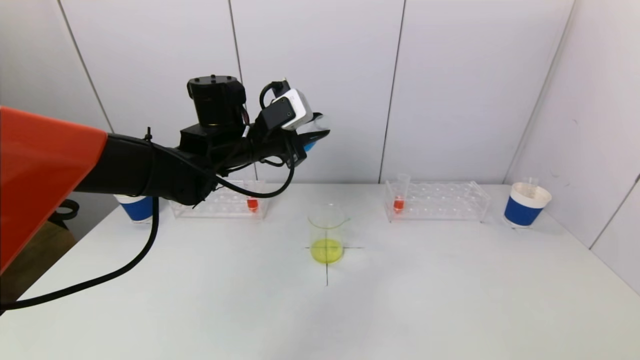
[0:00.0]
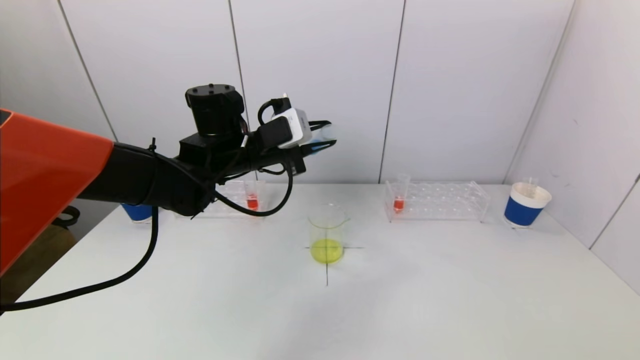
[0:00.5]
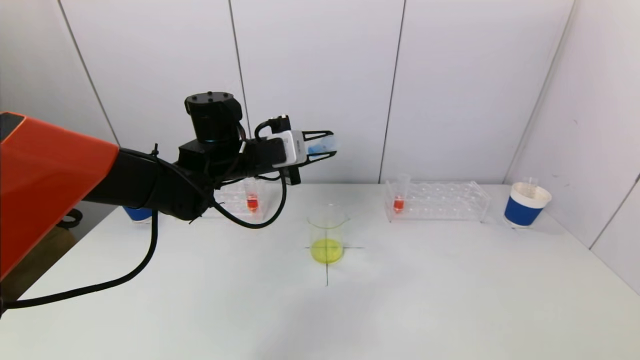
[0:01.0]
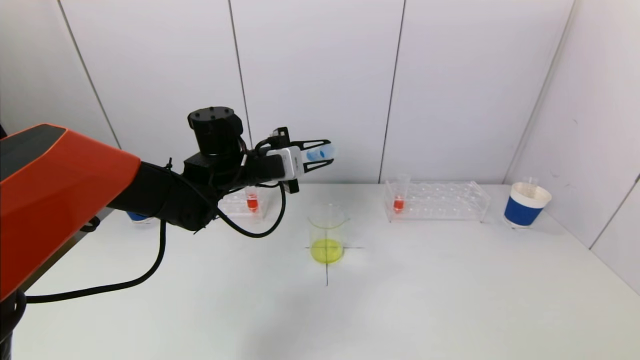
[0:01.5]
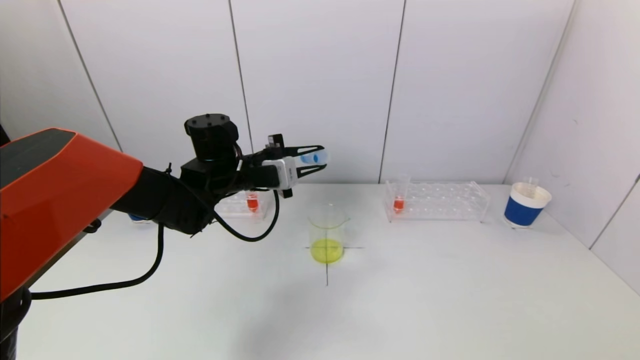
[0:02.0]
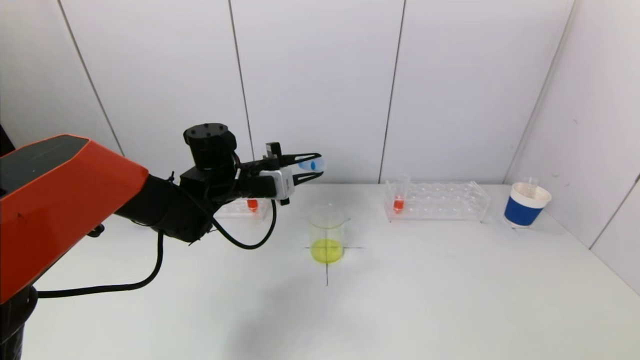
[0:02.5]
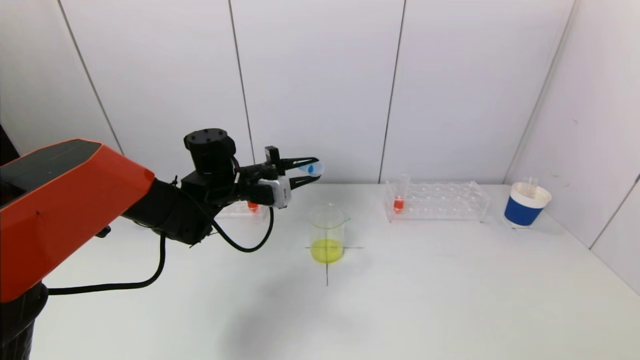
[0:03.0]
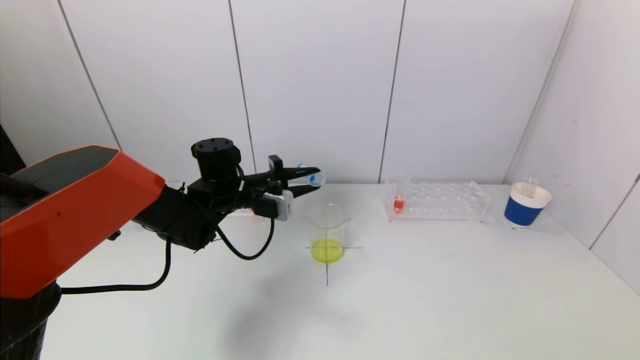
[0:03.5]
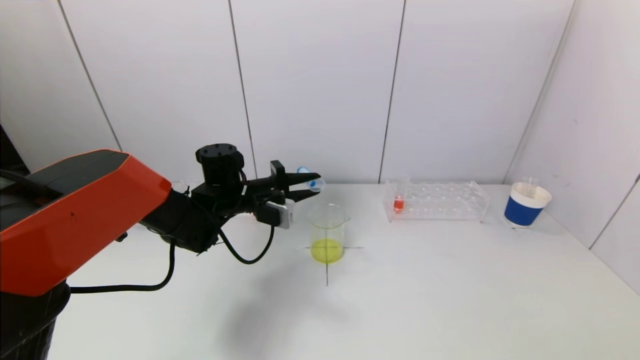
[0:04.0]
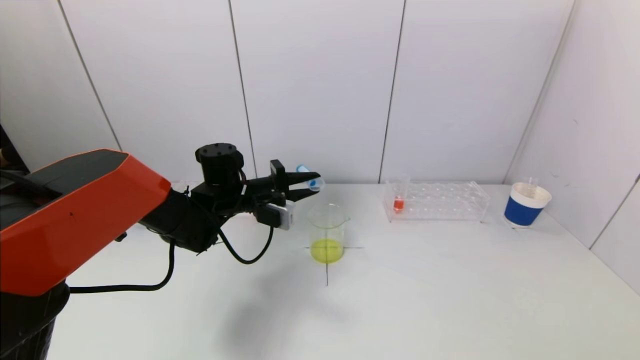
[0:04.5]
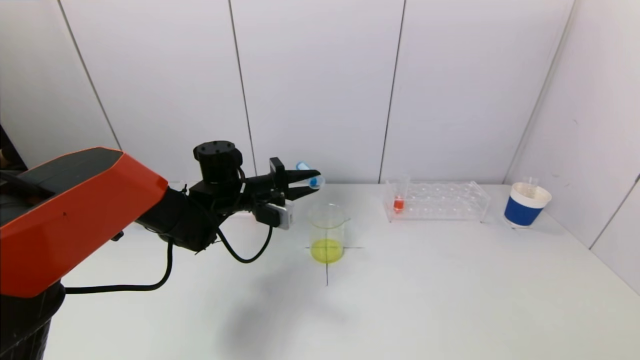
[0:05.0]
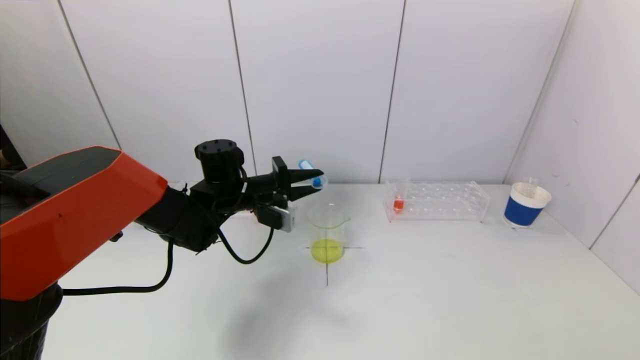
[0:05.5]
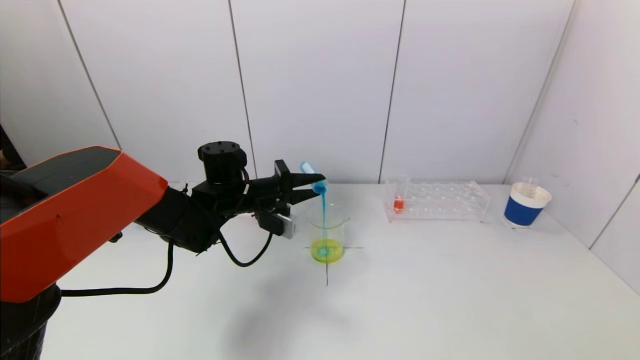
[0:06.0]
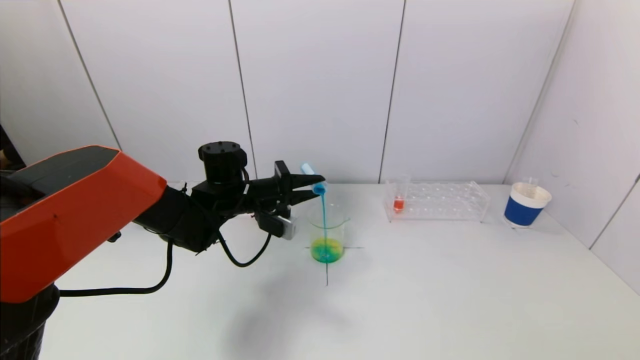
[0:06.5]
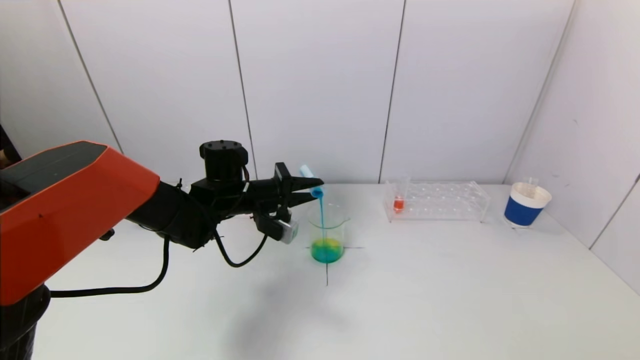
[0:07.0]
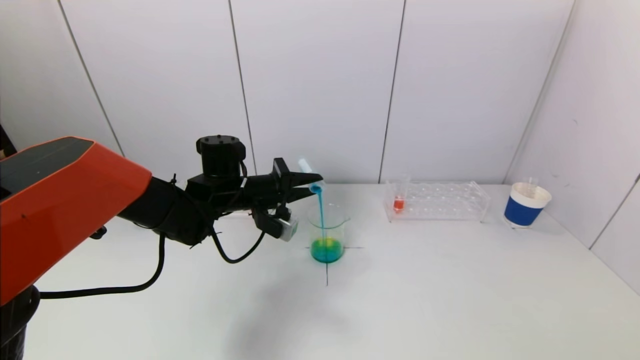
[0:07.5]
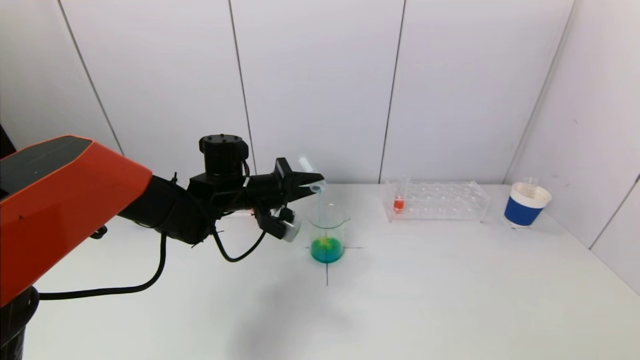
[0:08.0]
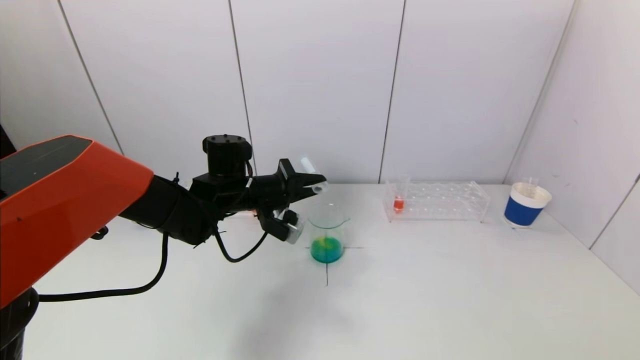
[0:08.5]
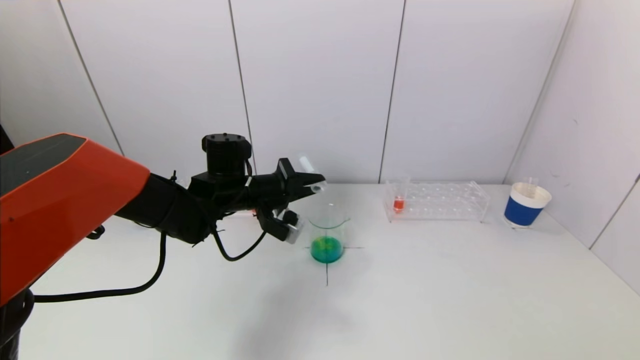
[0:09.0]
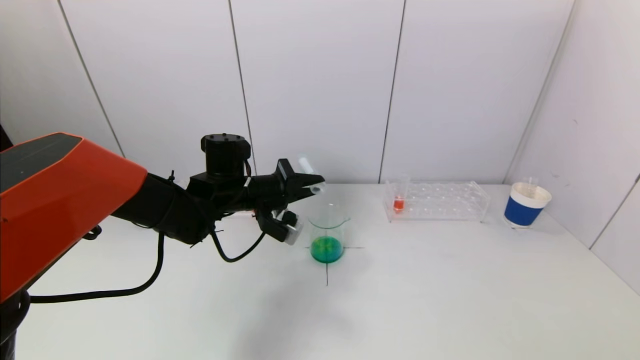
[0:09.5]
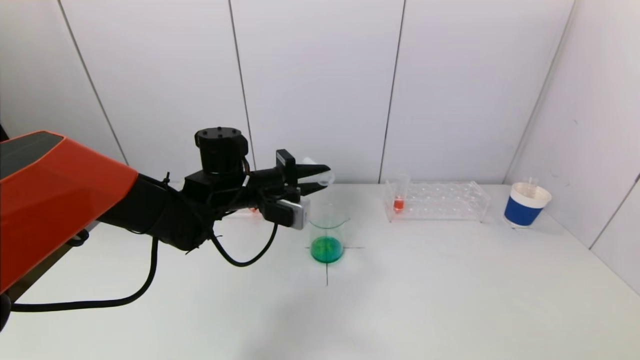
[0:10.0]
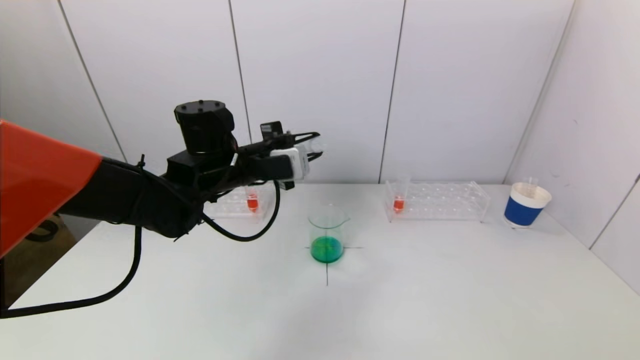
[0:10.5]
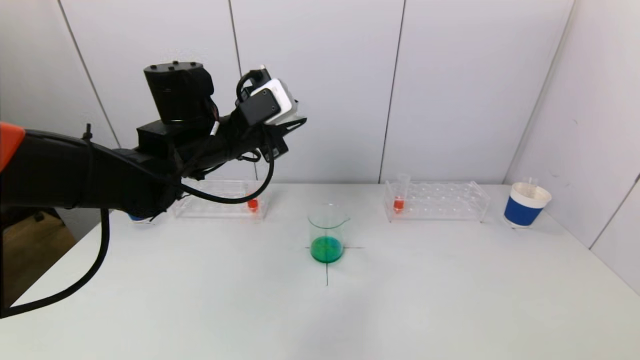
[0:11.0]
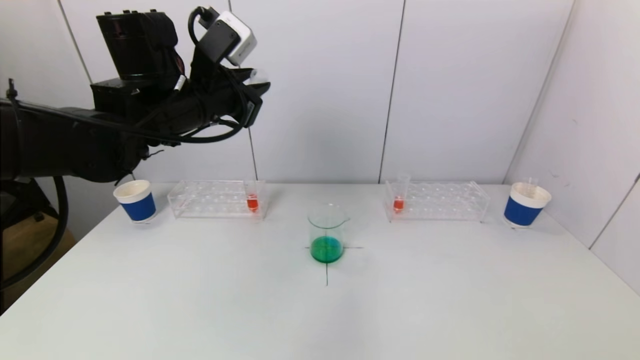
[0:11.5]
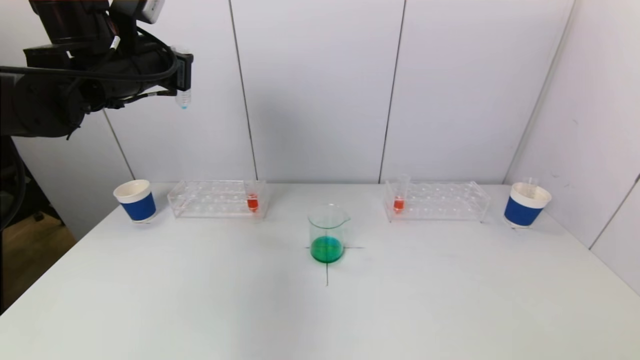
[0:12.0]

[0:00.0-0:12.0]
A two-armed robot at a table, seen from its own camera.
Task of the whole recording: pick up a test tube with pigment on left test tube rack and a test tube with pigment on right test tube rack by grippers and pour them into the beaker.
Step, 0:00.0 to 0:08.5: Pour the blue reagent into the graduated cylinder with the left gripper.
0:00.0 to 0:02.0: The left gripper heads downward, covering some 5 cm.
0:02.0 to 0:04.0: The left gripper moves downward, about 5 cm.
0:04.0 to 0:06.0: The grippers make only small movements.
0:06.0 to 0:10.0: There are only small adjustments of the grippers.
0:10.0 to 0:12.0: The left gripper moves upward and to the left, some 20 cm.

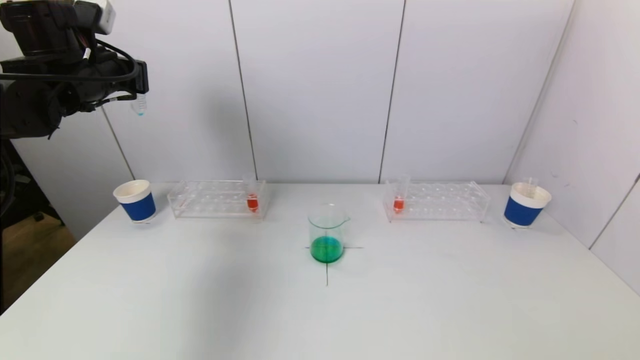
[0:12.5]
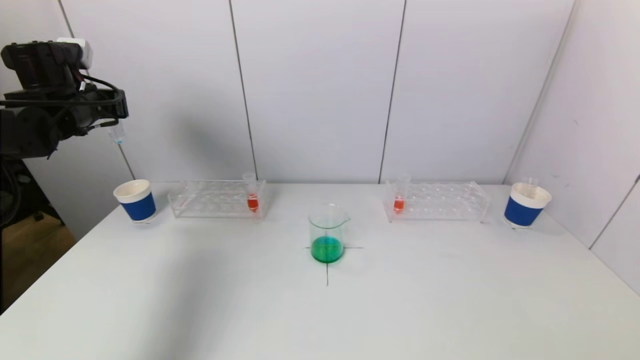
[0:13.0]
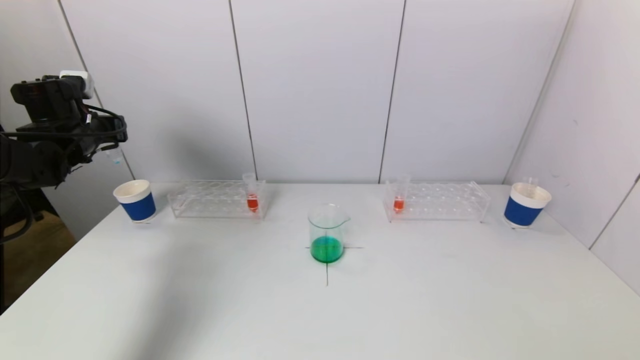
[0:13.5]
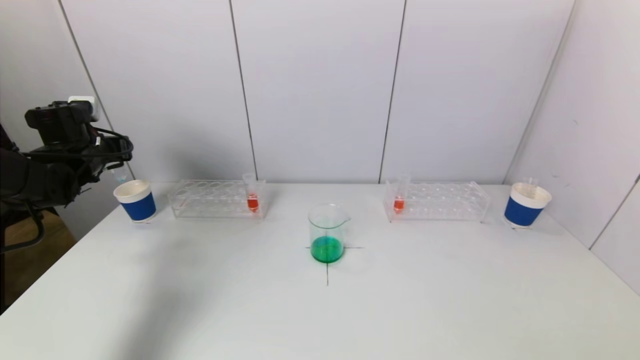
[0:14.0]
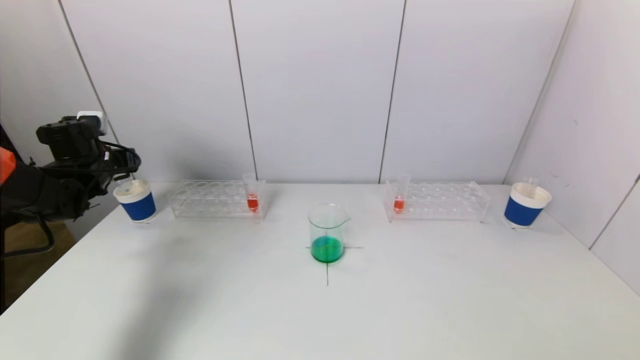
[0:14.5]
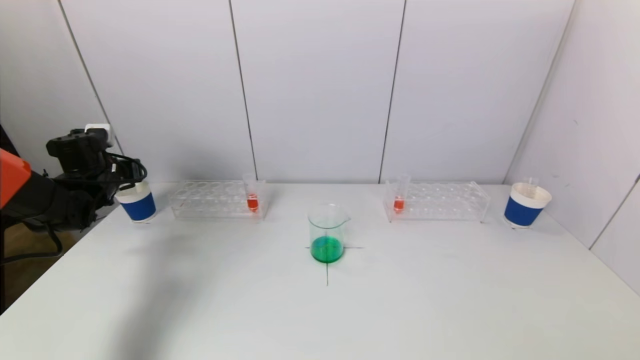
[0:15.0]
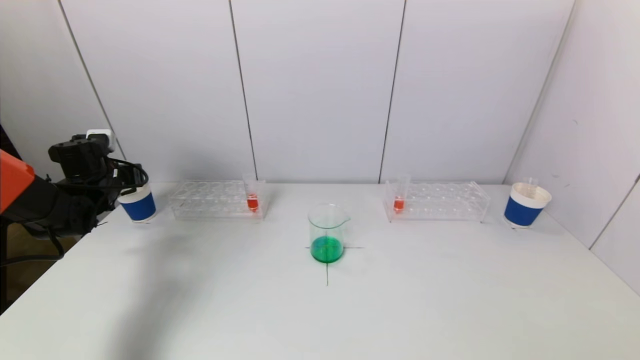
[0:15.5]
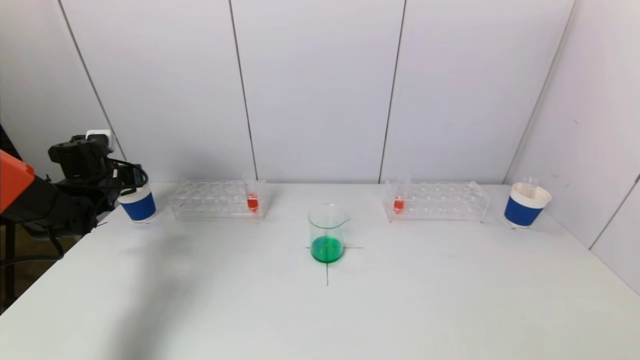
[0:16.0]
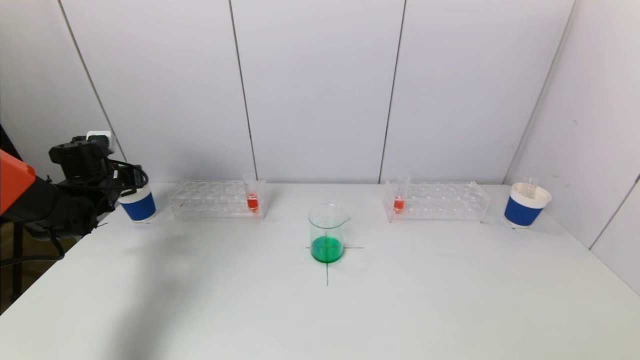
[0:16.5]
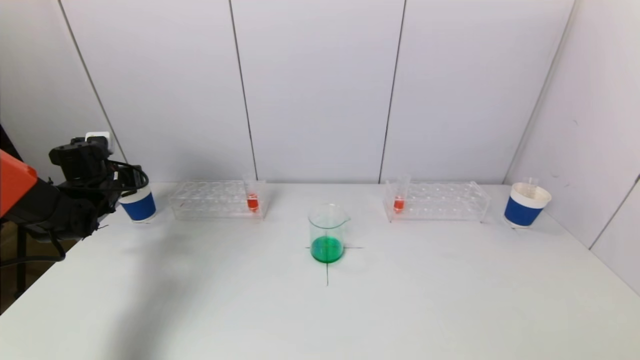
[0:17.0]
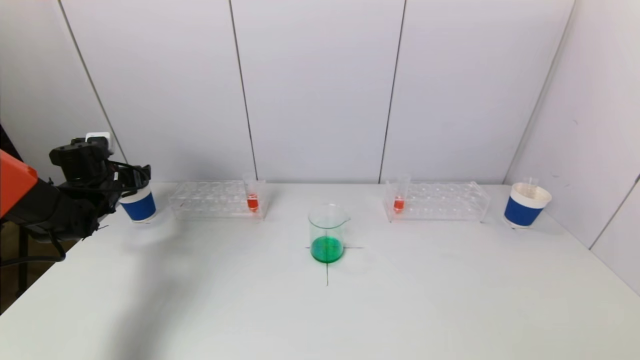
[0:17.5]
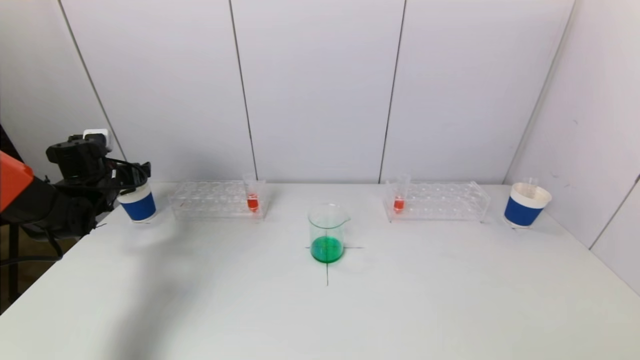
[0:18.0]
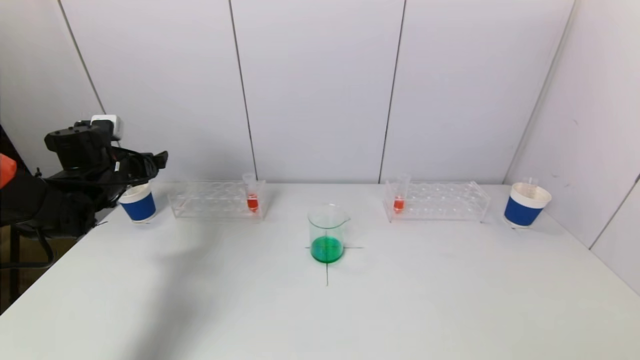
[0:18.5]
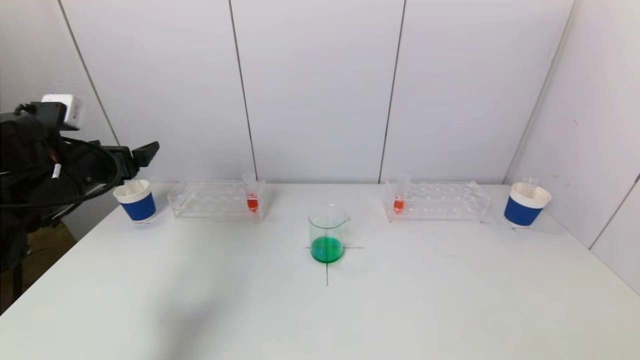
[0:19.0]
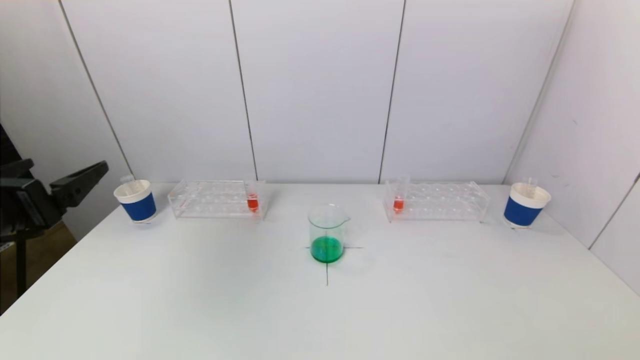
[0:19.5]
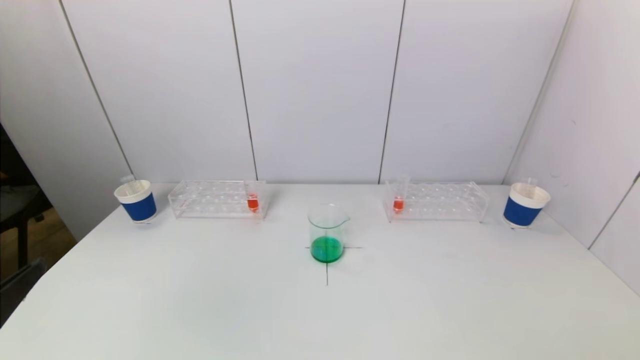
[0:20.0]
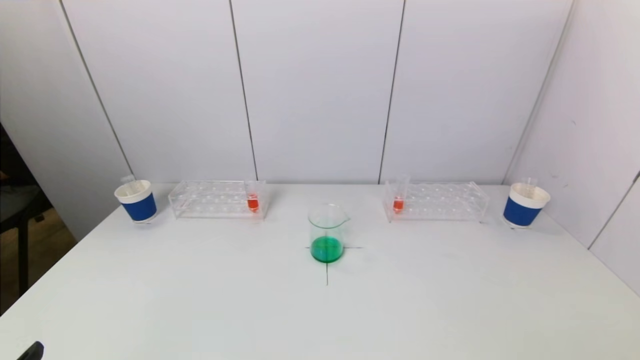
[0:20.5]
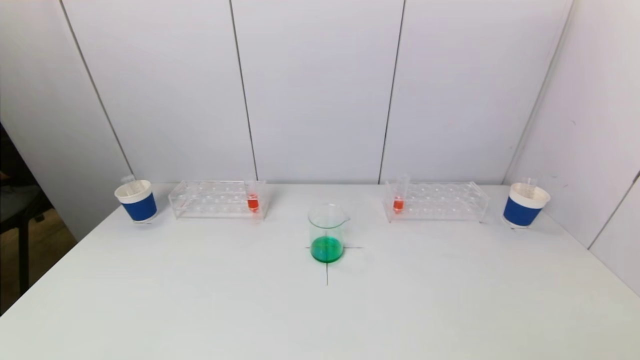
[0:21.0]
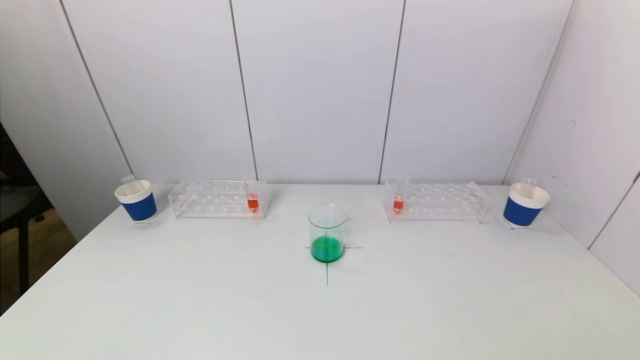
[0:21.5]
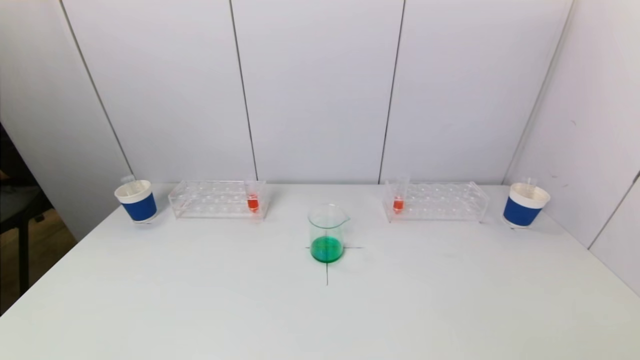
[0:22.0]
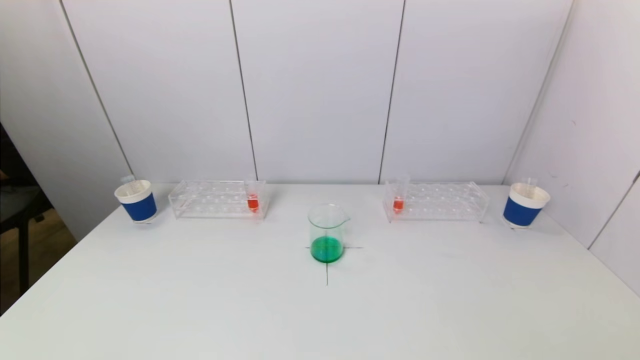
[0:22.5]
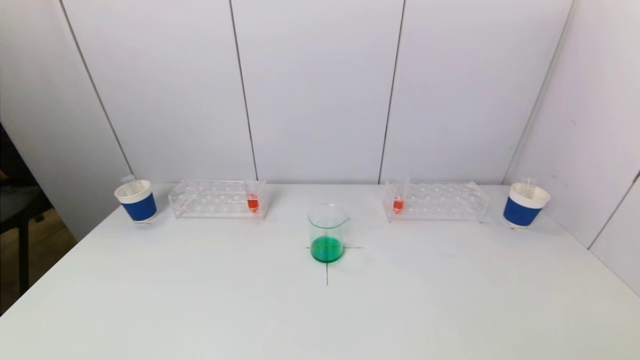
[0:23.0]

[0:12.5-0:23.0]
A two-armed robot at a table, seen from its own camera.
Task of the whole recording: pick up a test tube with pigment on left test tube rack and a test tube with pigment on right test tube rack by grippers and pour them into the beaker.
Step, 0:12.5 to 0:17.0: Place the test tube into the paper cup with the left gripper.
0:12.5 to 0:14.5: The left gripper shifts roughly 20 cm downward and to the left.
0:14.5 to 0:16.5: The grippers move only a little.
0:16.5 to 0:19.0: The left gripper travels backward, upward and to the right by approximately 20 cm, and opens its fingers.
0:19.0 to 0:21.0: The left gripper travels backward by about 30 cm.
